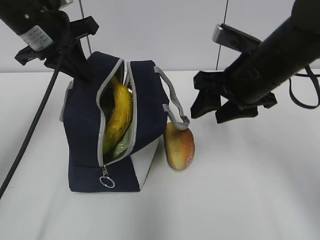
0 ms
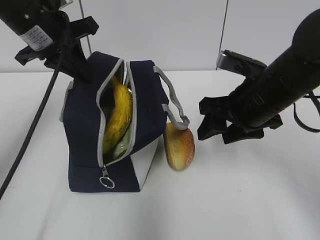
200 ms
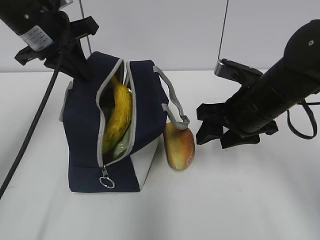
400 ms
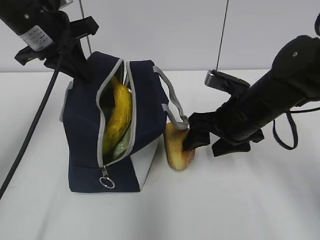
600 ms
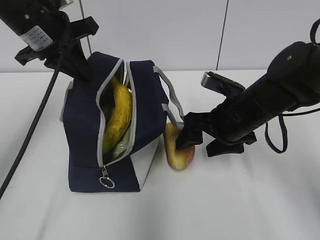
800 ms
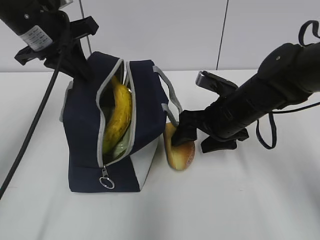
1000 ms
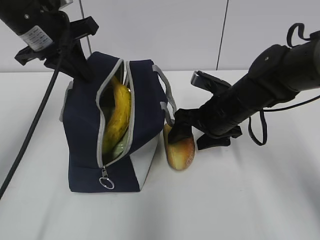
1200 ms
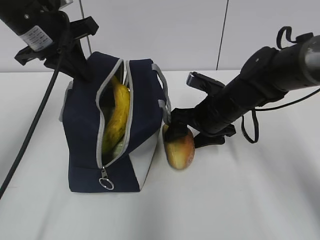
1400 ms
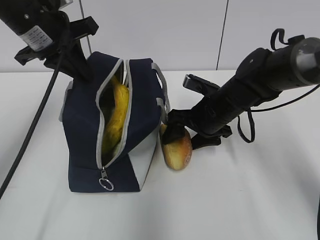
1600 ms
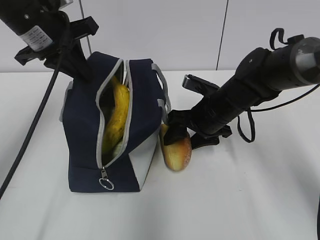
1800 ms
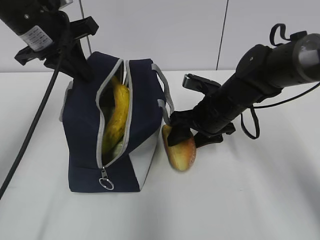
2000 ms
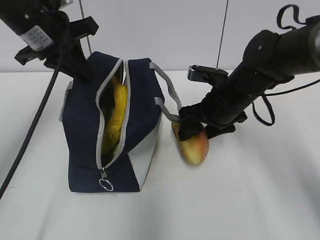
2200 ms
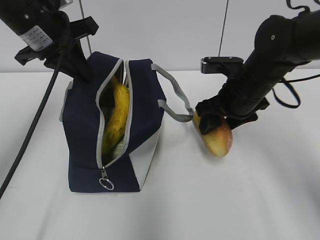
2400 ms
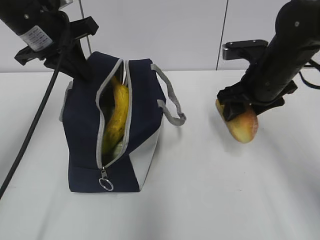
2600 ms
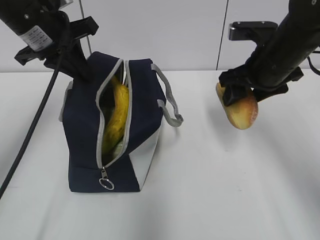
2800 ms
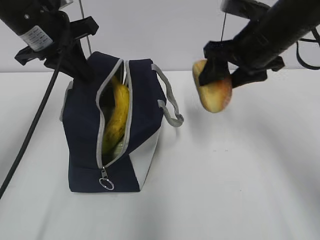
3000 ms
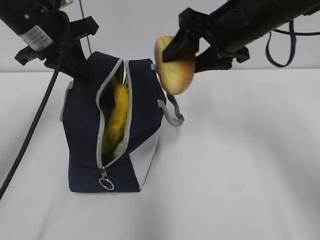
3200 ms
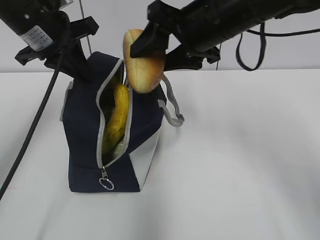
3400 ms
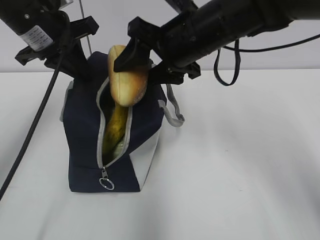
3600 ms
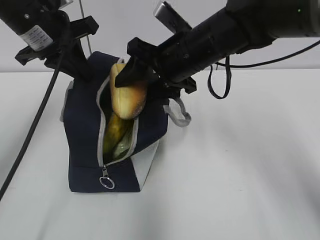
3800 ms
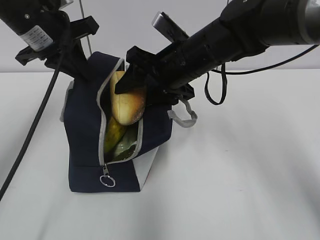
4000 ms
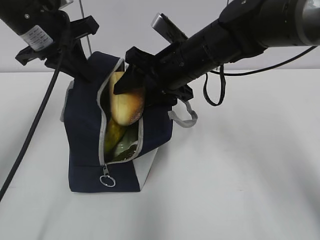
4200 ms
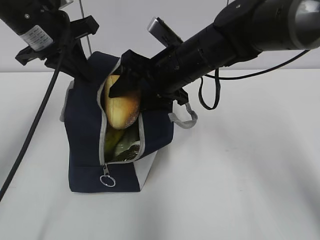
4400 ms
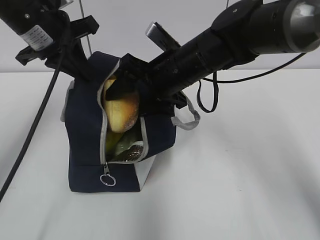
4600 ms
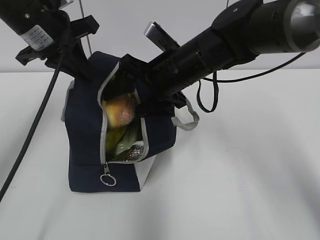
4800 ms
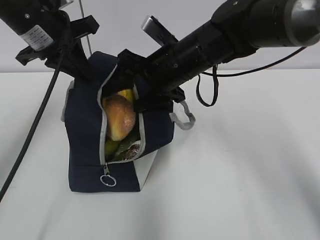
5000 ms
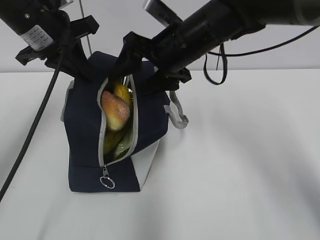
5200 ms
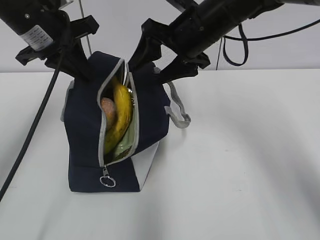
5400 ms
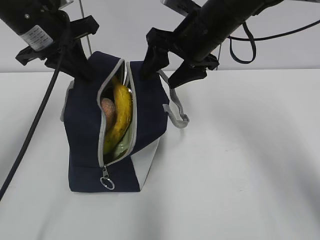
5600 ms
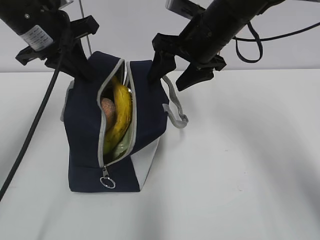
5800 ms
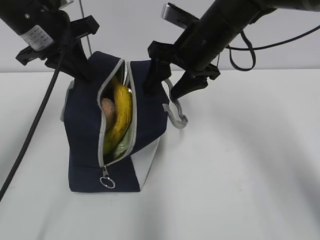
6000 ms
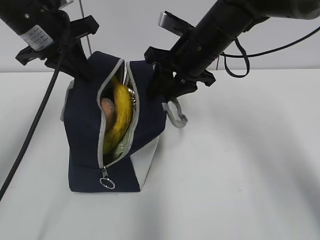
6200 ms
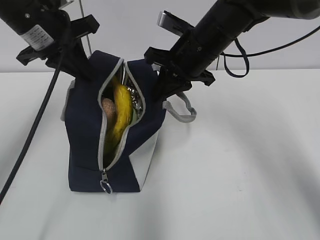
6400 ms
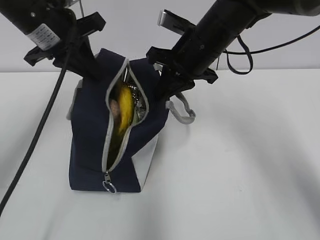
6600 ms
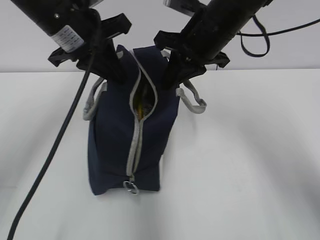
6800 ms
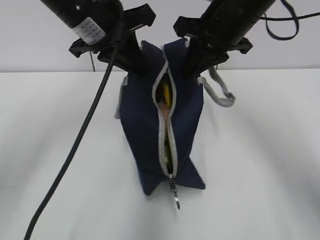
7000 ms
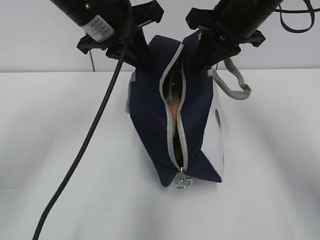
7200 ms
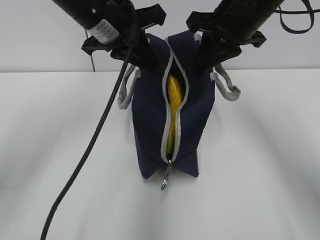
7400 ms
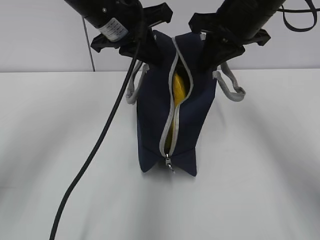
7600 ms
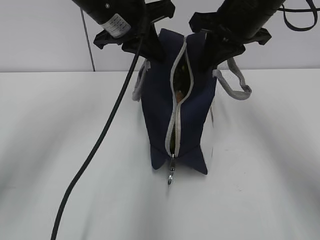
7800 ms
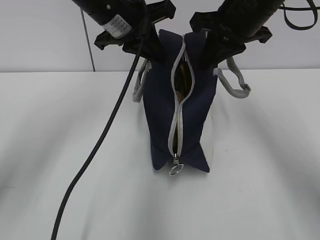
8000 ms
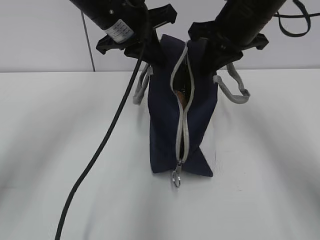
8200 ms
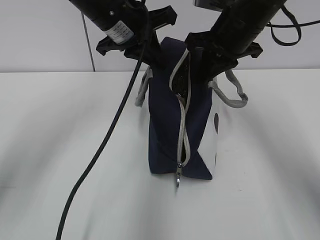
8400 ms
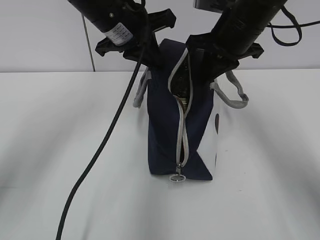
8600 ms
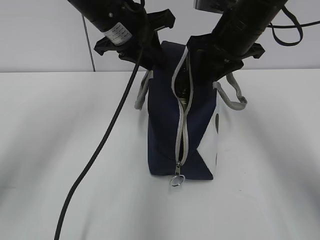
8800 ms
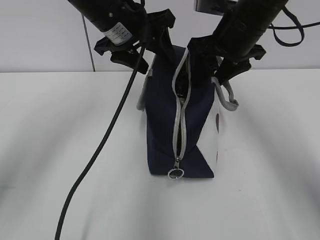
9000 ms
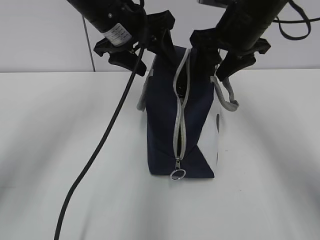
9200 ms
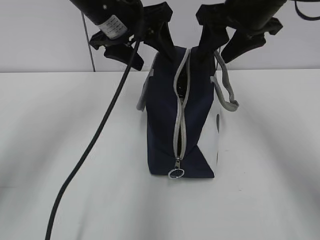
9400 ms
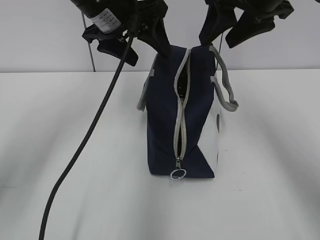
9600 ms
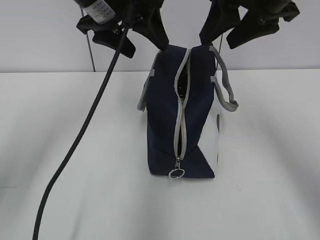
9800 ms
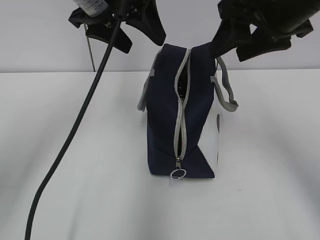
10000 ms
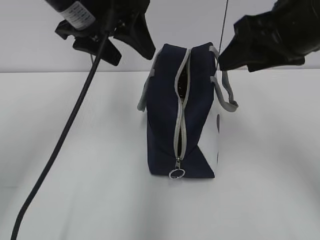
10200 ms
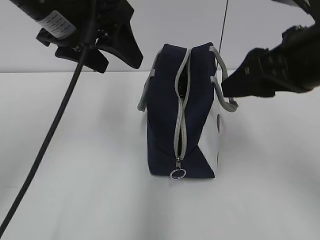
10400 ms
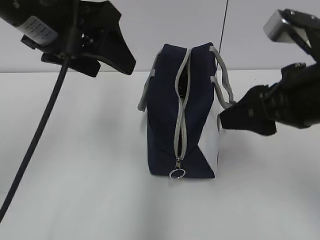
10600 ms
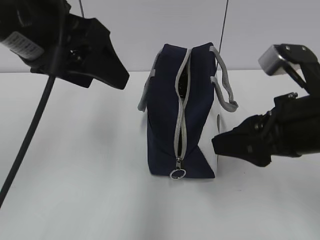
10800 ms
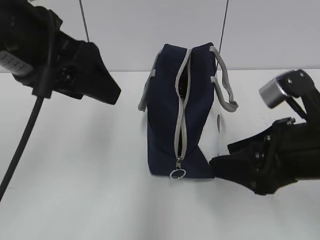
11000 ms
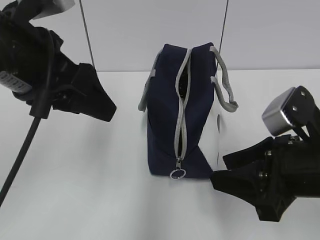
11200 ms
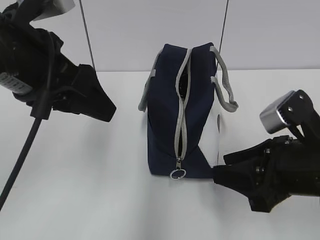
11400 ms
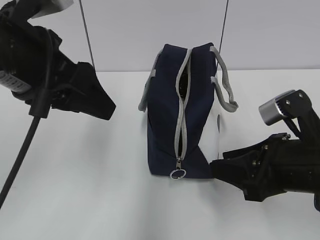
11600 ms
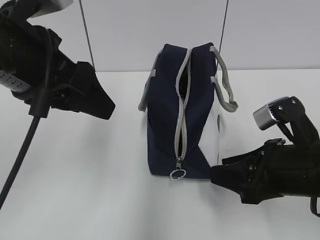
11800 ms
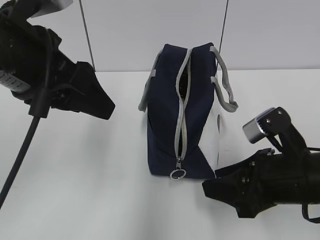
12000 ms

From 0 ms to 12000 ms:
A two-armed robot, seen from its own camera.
From 0 ms to 1600 ms: The right gripper goes about 15 cm downward and forward.
From 1600 ms to 3000 ms: The right gripper travels upward by approximately 15 cm.
From 3000 ms to 4400 ms: The right gripper heads to the left, covering about 10 cm.
From 4400 ms to 6000 ms: The right gripper moves about 5 cm.
From 6000 ms to 7600 ms: The right gripper heads upward and to the right, covering some 10 cm, and closes. The left gripper is displaced to the right by about 10 cm.
From 7600 ms to 9000 ms: The left gripper opens up. The right gripper opens.
From 9000 ms to 10400 ms: The left gripper shifts roughly 10 cm backward. The right gripper travels backward by approximately 15 cm.
From 10400 ms to 12000 ms: The right gripper heads downward, covering roughly 15 cm, while the left gripper is displaced backward by about 5 cm.

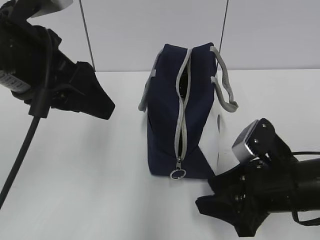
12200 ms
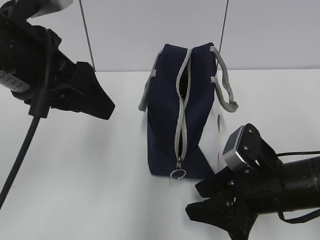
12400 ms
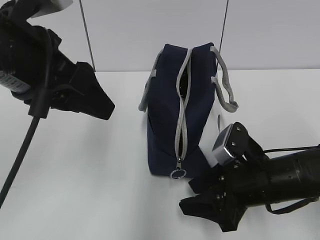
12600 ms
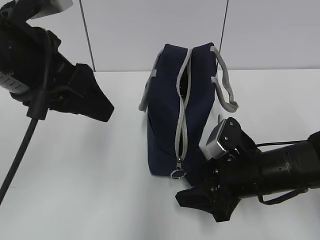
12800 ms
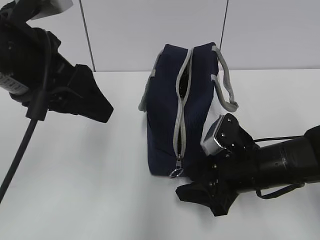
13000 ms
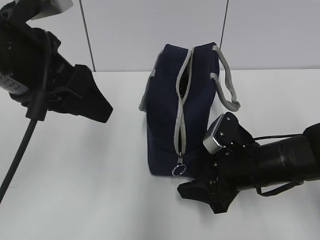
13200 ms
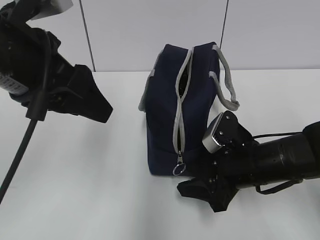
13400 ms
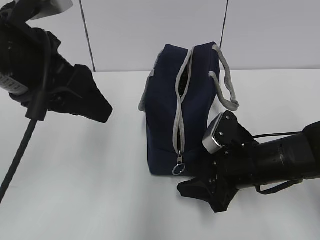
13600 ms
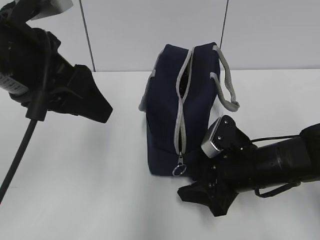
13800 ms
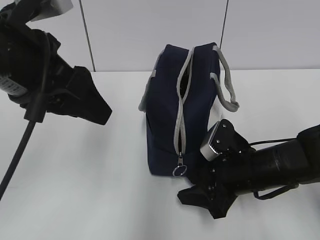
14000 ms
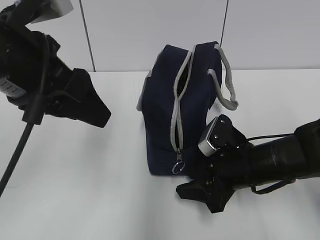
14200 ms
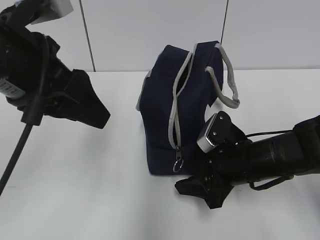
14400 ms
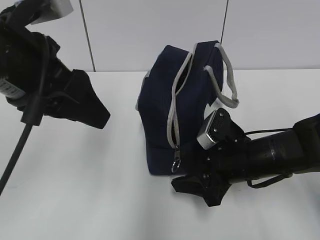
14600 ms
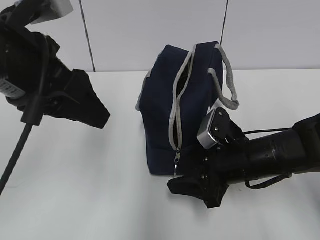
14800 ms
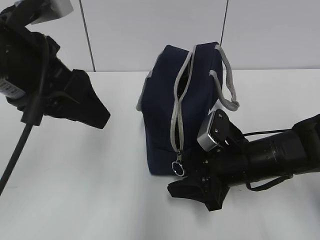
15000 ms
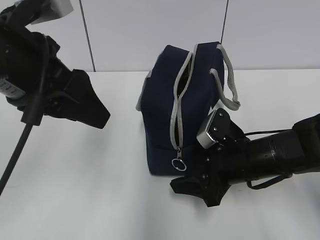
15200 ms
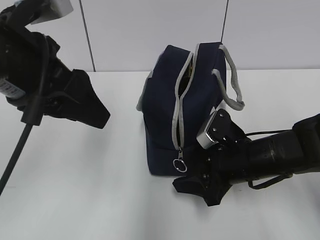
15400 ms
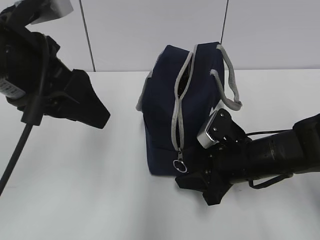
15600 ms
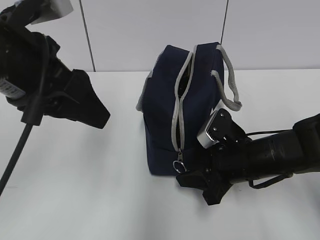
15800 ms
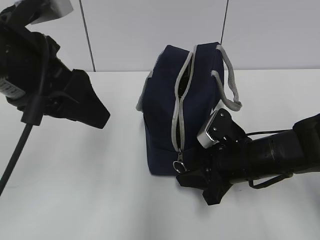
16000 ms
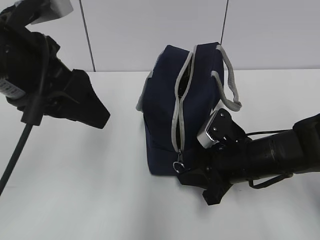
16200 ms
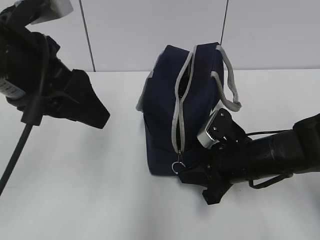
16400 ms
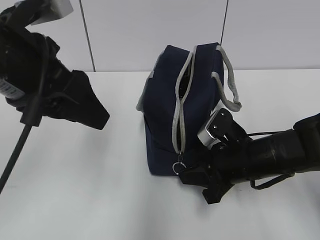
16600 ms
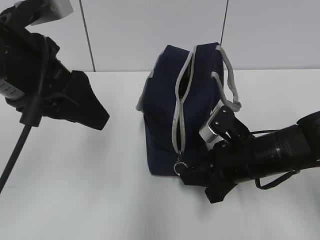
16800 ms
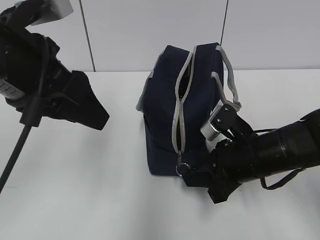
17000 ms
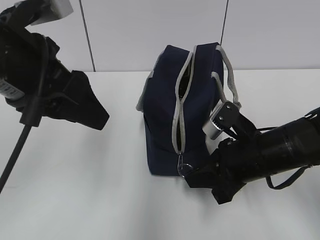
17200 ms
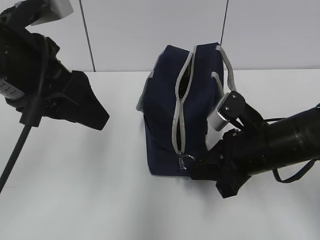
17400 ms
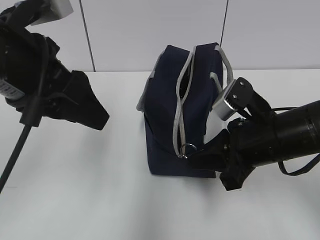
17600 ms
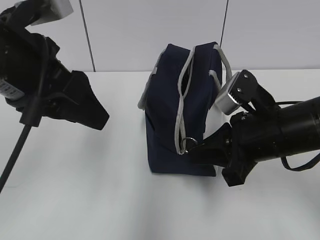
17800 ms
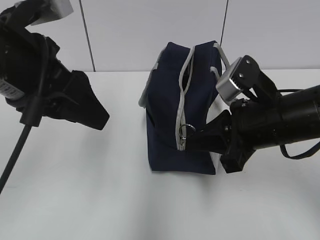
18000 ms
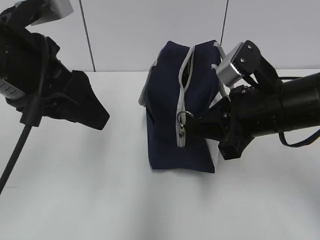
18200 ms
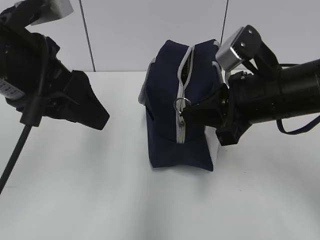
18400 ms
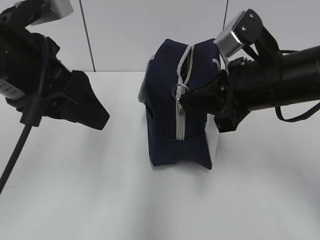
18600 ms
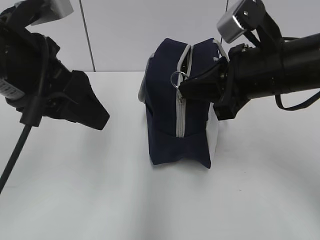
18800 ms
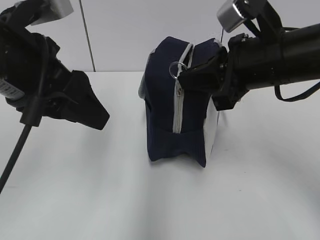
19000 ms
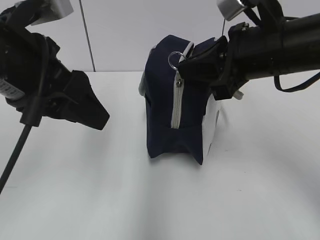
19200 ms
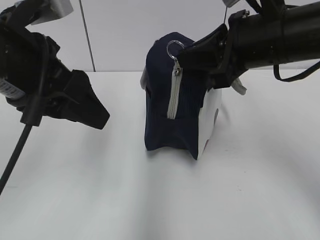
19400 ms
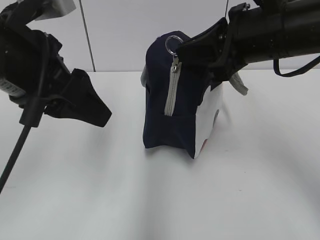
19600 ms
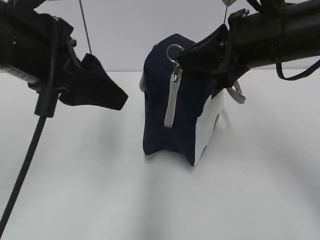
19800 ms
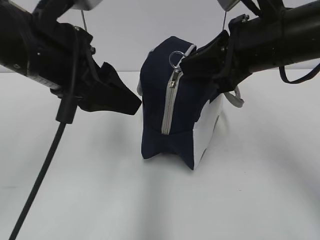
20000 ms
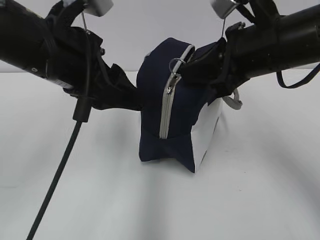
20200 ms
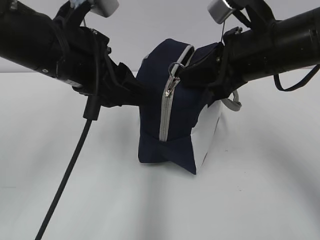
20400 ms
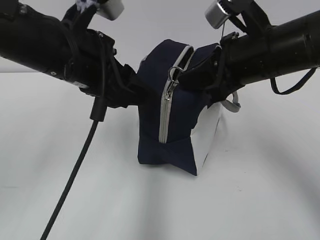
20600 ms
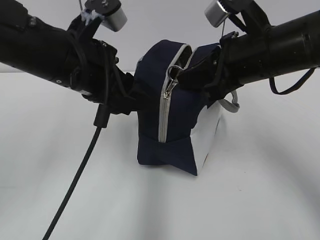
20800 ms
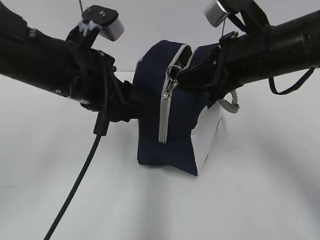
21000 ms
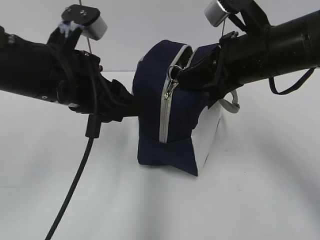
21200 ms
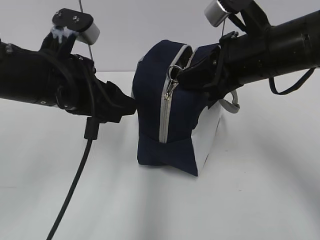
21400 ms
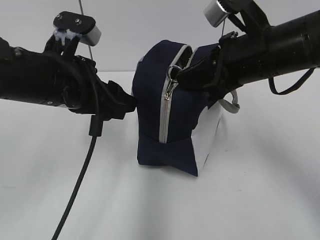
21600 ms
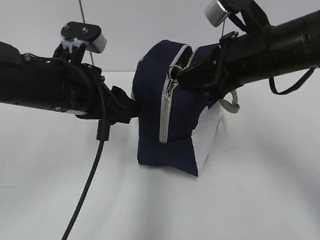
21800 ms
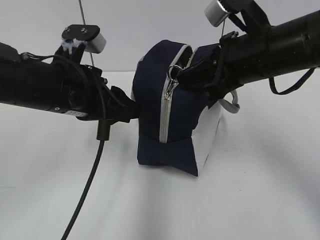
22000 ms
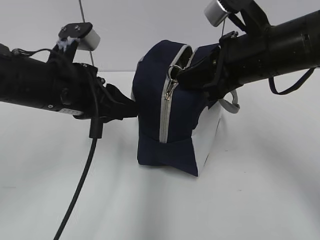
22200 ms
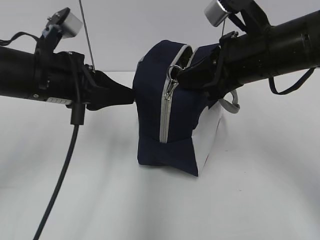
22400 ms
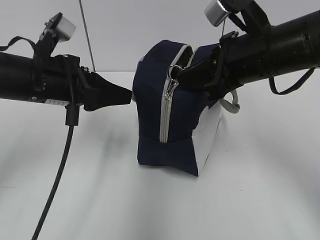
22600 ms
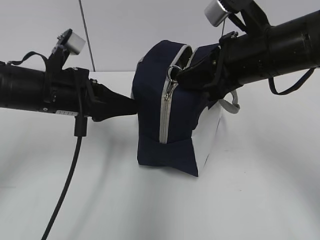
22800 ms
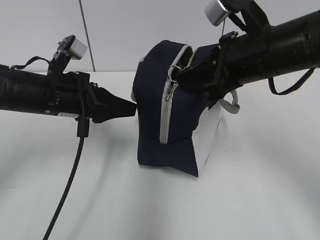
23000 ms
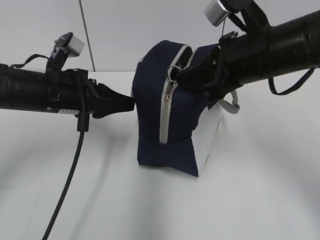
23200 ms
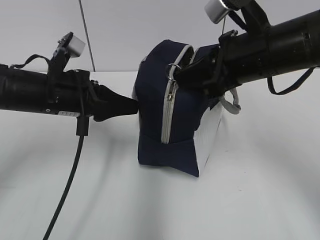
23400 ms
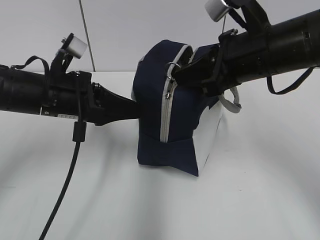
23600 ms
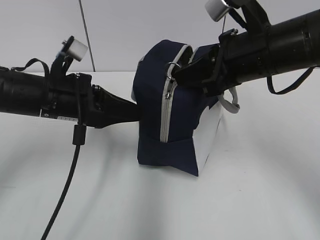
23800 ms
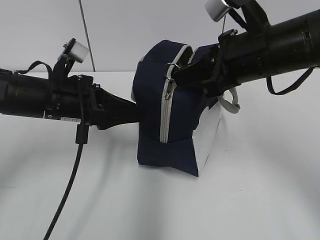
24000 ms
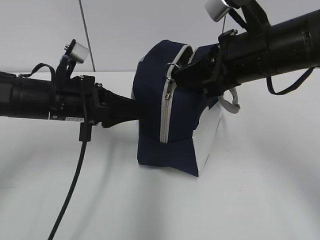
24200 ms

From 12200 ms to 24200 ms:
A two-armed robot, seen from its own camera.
From 12200 ms to 13800 ms: The right gripper goes about 5 cm forward.
From 13800 ms to 15200 ms: The grippers move only a little.
From 15200 ms to 16600 ms: The right gripper closes its fingers.
From 16600 ms to 18200 ms: The right gripper is displaced upward by about 10 cm.
From 18200 ms to 19800 ms: The right gripper travels upward by roughly 10 cm.
From 19800 ms to 21200 ms: The left gripper travels downward by approximately 5 cm.
From 21200 ms to 22600 ms: The left gripper changes place by some 5 cm.
From 22600 ms to 24200 ms: The grippers make only small movements.
